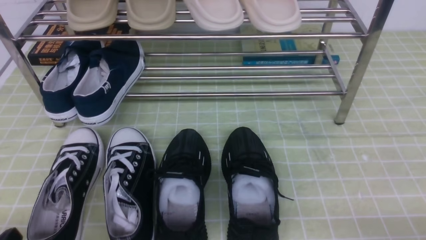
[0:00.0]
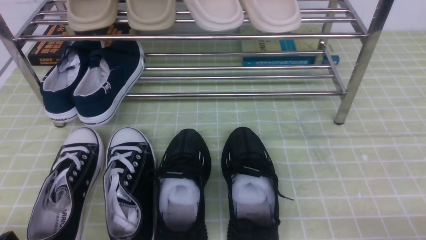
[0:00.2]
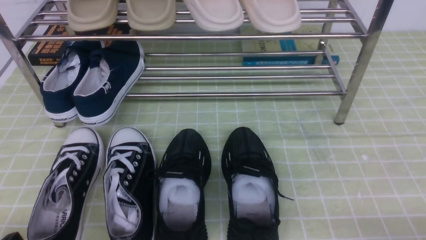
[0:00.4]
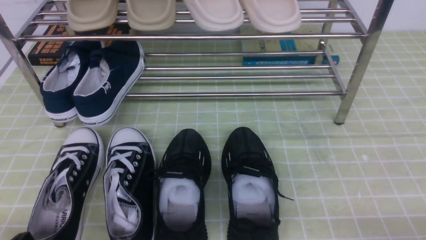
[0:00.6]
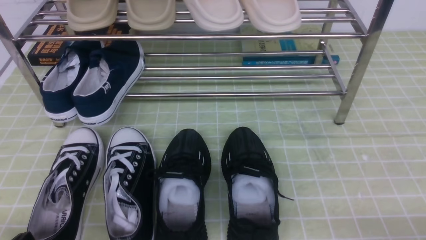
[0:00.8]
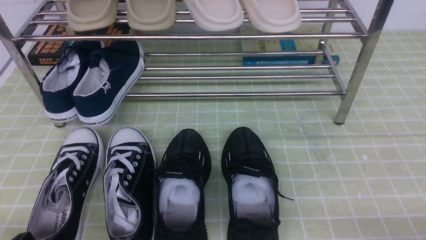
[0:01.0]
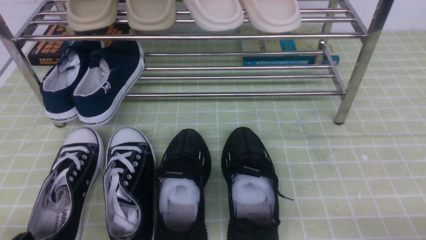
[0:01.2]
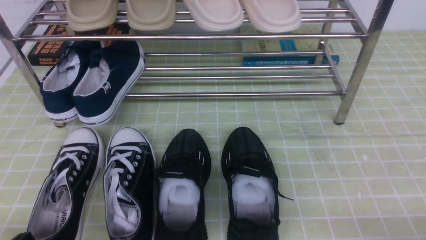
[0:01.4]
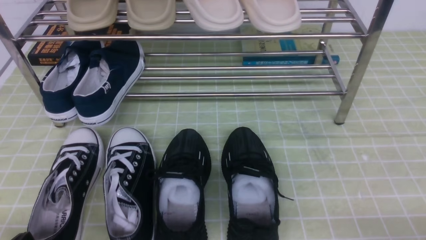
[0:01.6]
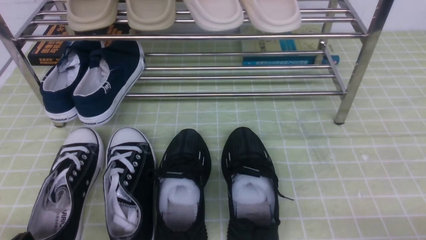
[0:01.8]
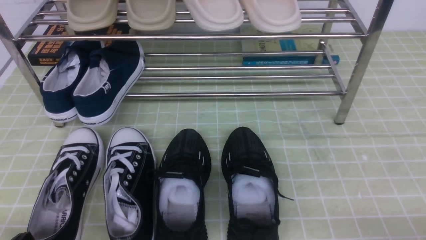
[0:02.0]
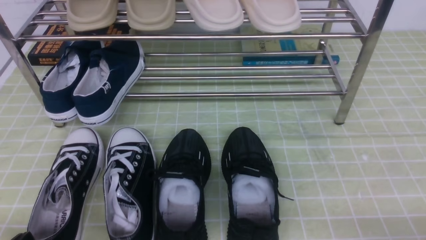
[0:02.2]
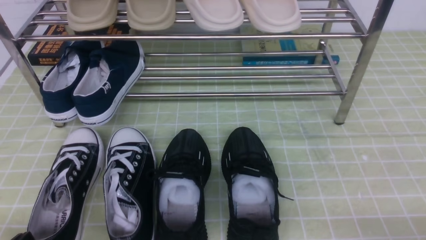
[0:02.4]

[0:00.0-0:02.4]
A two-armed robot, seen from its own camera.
0:01.2 to 0:02.4: Both grippers stay put.
